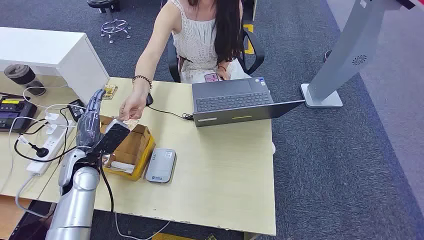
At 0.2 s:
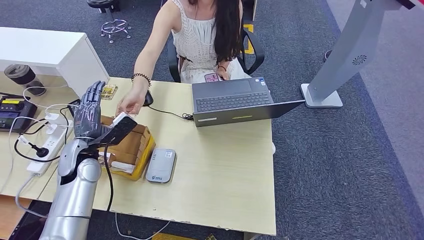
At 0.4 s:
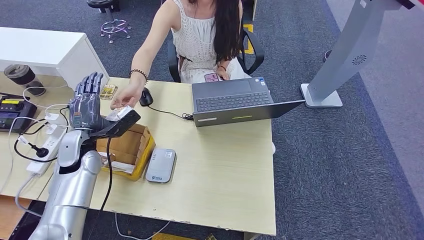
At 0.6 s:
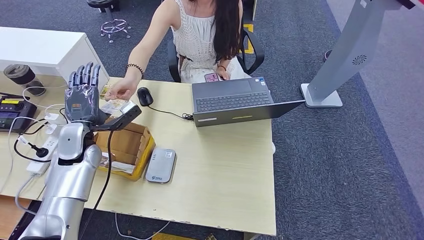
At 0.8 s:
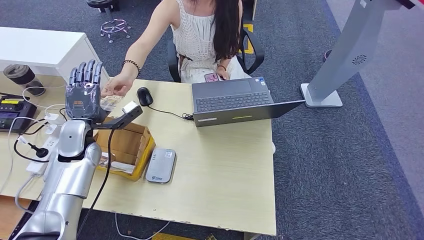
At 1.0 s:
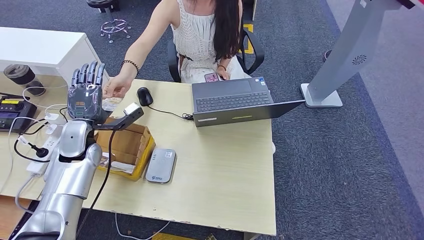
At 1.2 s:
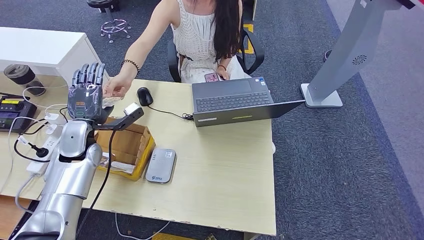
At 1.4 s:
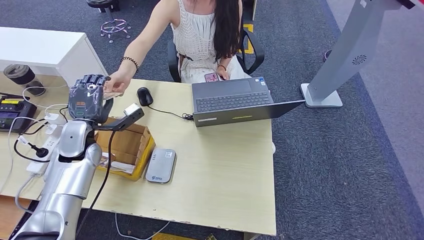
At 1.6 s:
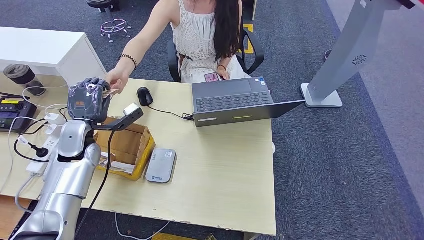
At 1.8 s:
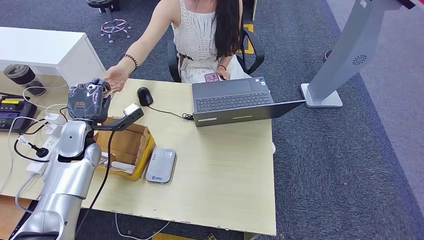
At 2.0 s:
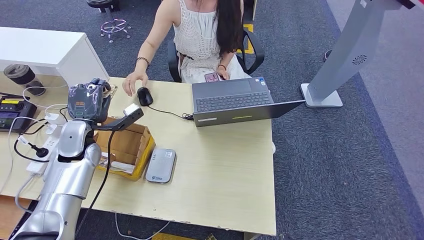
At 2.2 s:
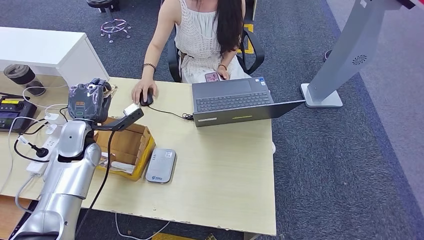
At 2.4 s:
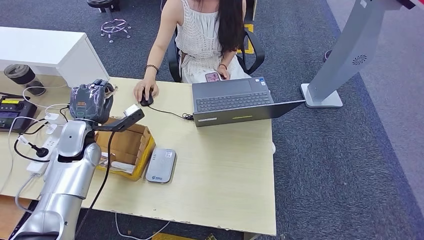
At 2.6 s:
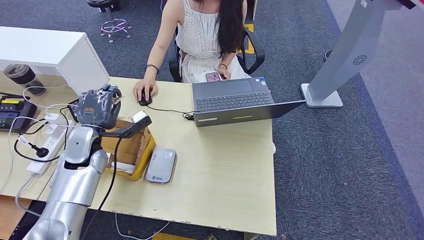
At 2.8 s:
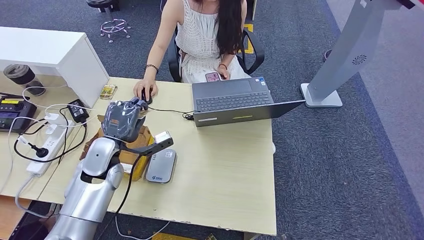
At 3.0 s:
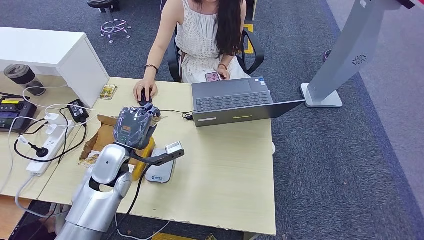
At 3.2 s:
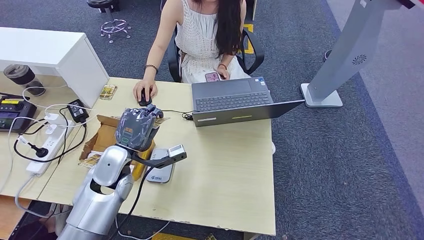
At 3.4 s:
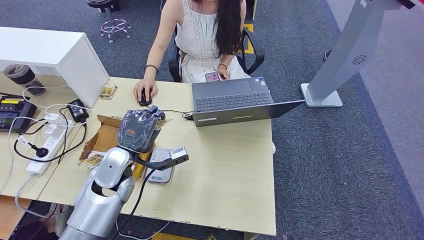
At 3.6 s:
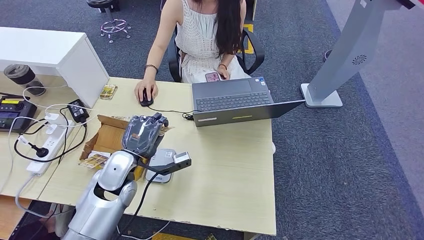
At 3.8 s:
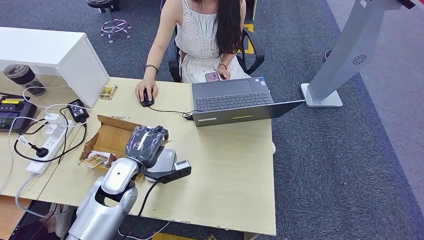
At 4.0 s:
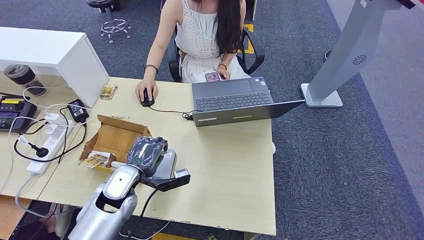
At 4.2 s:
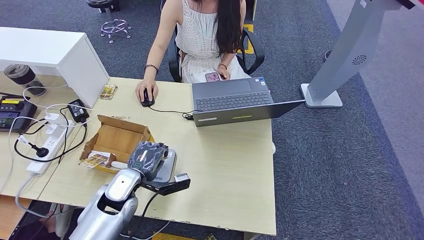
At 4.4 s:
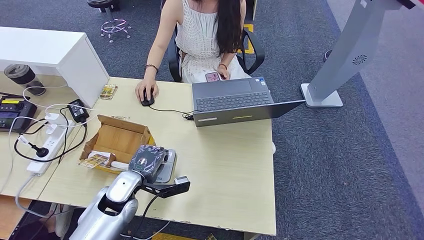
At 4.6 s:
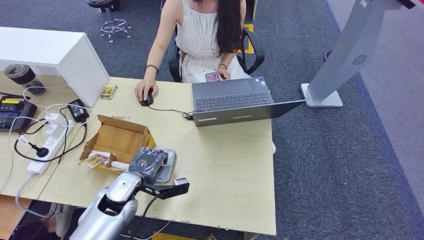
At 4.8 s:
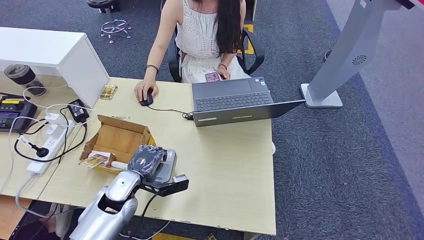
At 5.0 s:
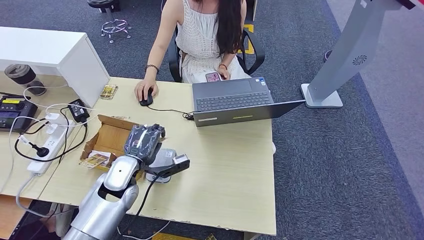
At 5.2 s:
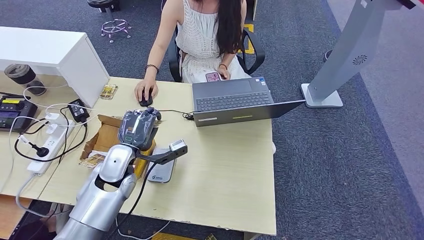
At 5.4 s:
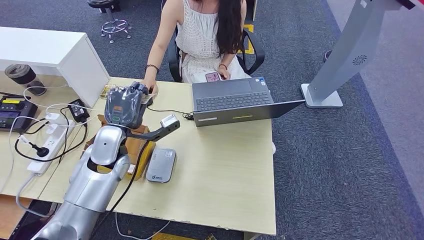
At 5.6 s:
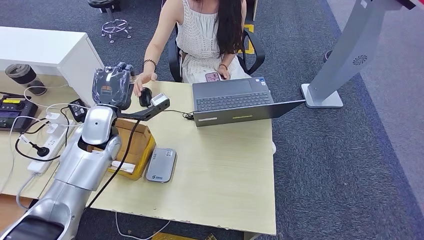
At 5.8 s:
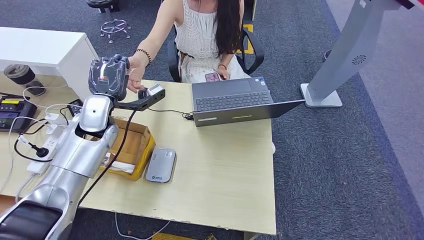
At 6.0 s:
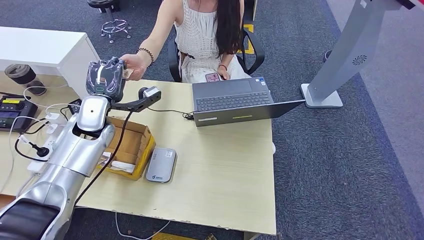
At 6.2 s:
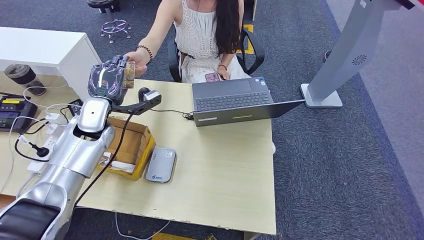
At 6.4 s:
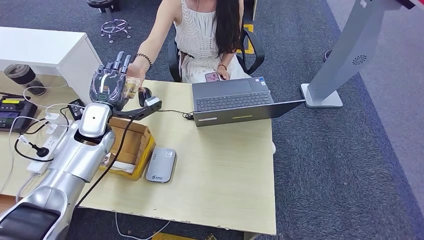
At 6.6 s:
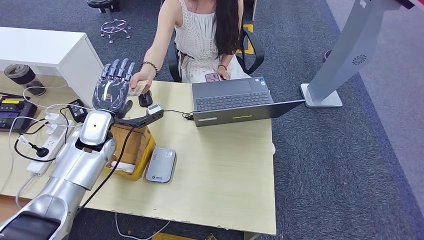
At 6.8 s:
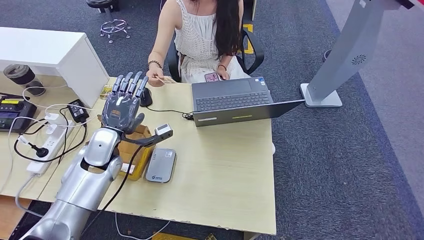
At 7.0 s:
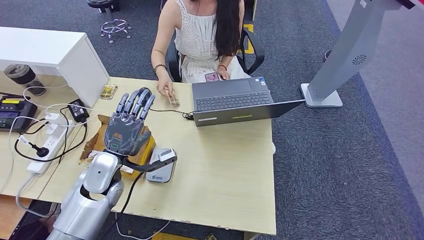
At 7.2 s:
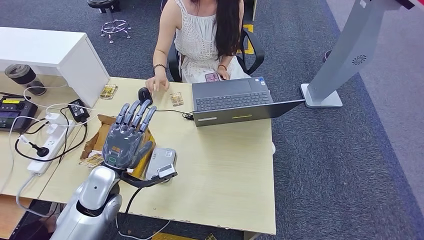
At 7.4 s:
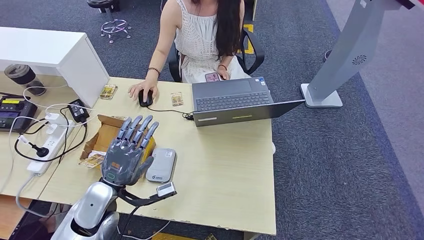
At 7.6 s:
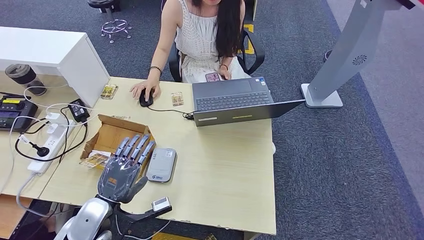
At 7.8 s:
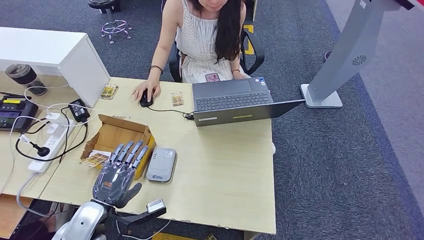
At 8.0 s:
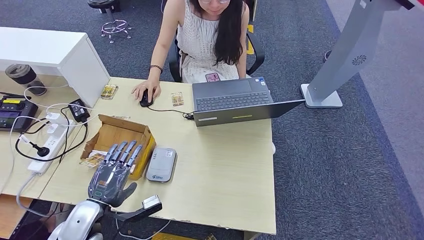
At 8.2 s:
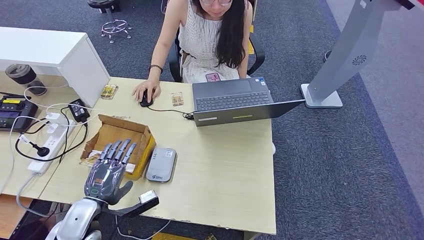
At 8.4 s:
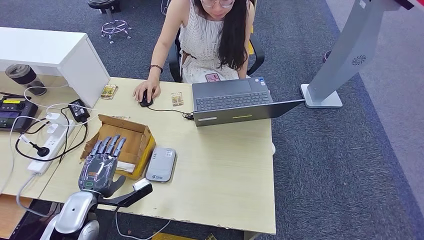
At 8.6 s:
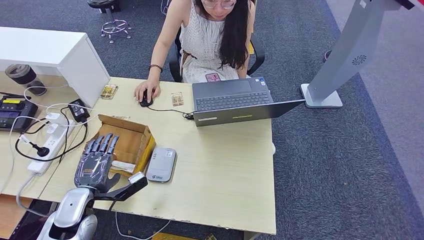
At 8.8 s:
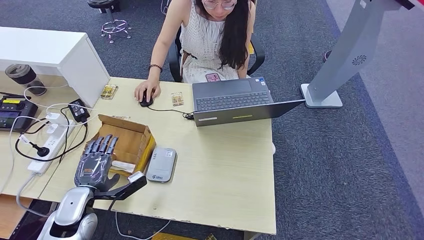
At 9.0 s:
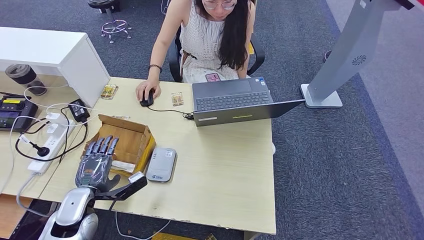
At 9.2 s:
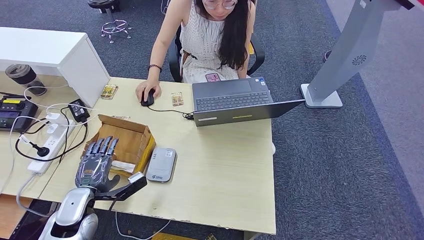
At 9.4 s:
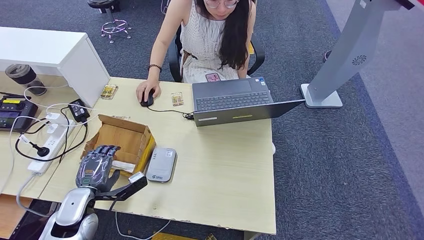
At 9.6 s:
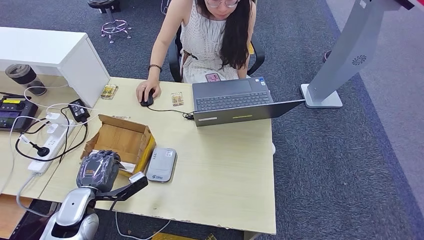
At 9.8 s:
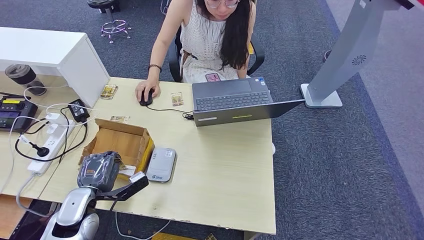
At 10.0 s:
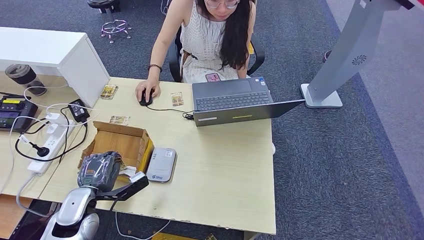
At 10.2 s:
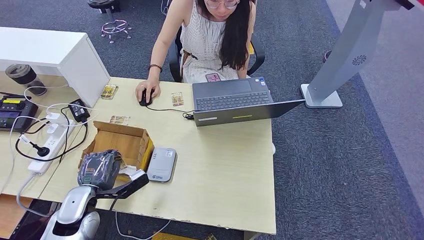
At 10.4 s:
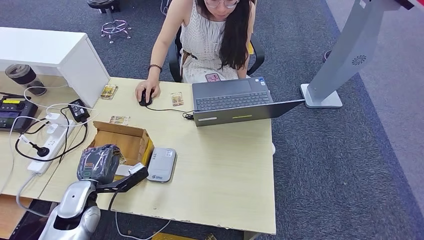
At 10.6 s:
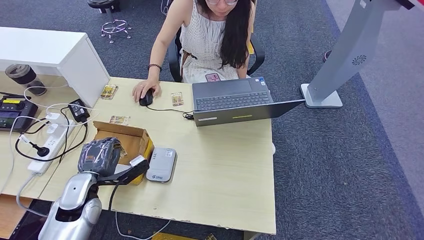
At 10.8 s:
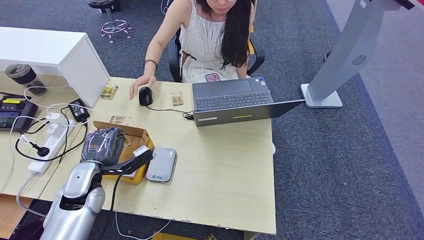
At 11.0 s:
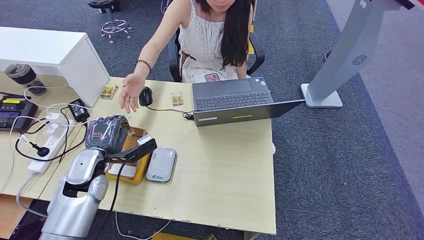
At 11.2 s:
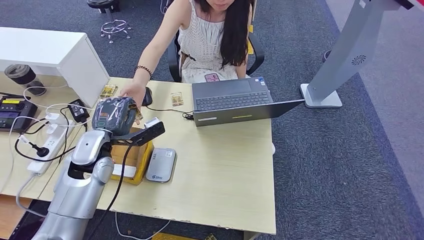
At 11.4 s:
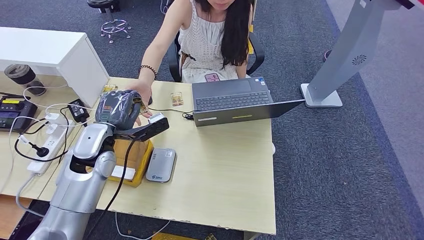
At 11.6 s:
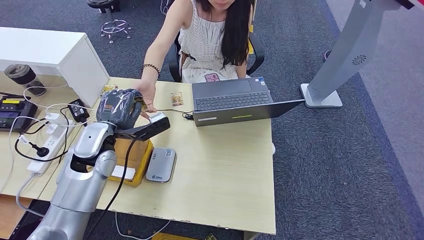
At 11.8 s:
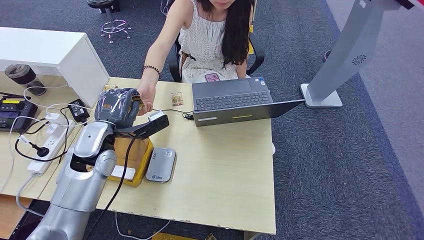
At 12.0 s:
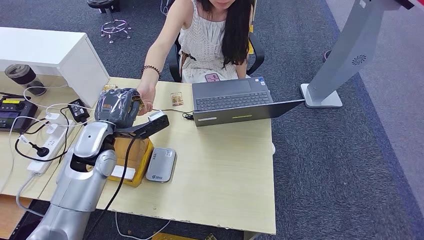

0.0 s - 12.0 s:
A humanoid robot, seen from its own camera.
Step, 0.0 s - 2.2 s: Take the ID card from the person's hand.
Step, 2.4 s - 5.6 s: Place the ID card on the card reader.
Step, 5.8 s - 9.2 s: Hand the ID card to the person.
Step, 9.4 s - 12.0 s: Pick up the room key from the key card box.
1.6 s - 3.0 s: The left hand moves to the right and backward, some 10 cm.
3.0 s - 4.4 s: The left hand travels downward by about 5 cm.
4.4 s - 6.0 s: The left hand heads upward, forward and to the left, covering about 20 cm.
6.0 s - 7.6 s: The left hand travels backward and downward by about 25 cm.
7.6 s - 9.0 s: The left hand goes some 5 cm to the left.
9.0 s - 10.4 s: There are only small adjustments of the hands.
10.4 s - 12.0 s: The left hand goes roughly 15 cm upward, forward and to the right.

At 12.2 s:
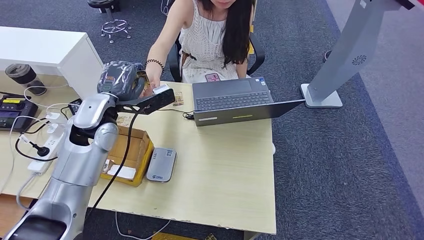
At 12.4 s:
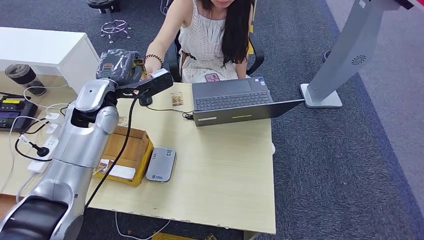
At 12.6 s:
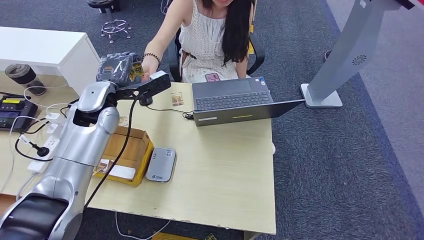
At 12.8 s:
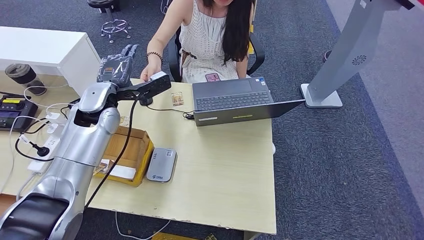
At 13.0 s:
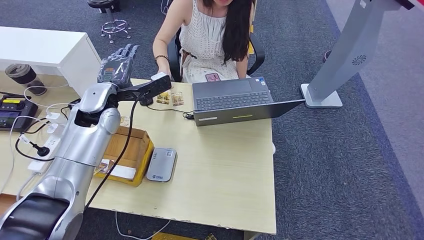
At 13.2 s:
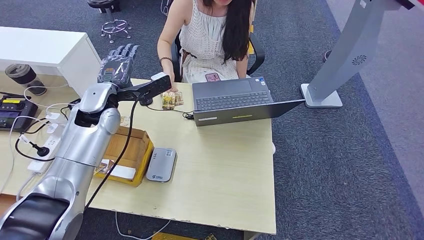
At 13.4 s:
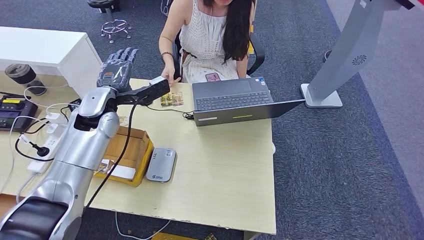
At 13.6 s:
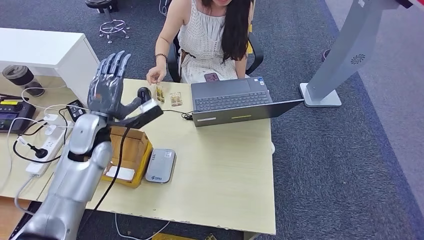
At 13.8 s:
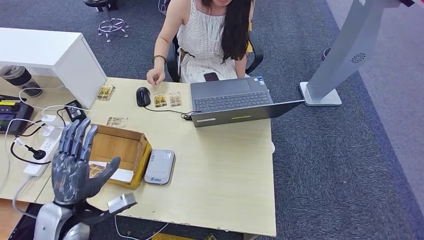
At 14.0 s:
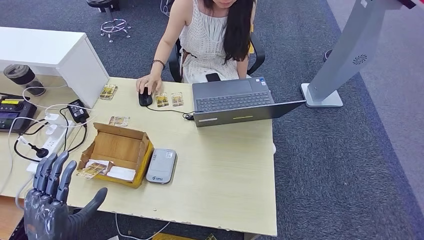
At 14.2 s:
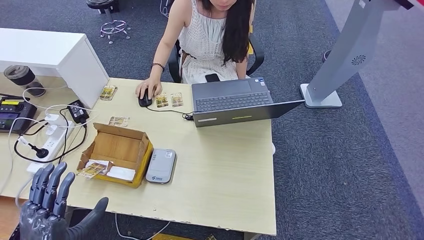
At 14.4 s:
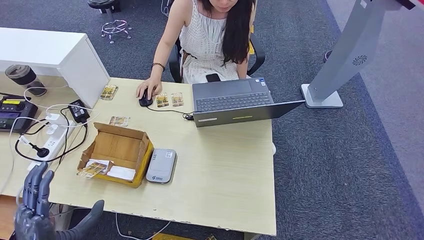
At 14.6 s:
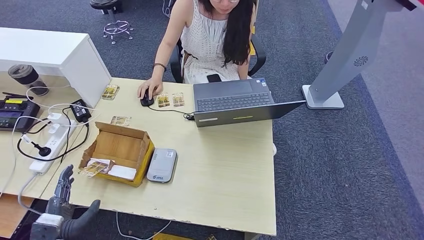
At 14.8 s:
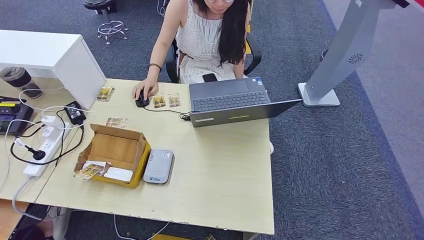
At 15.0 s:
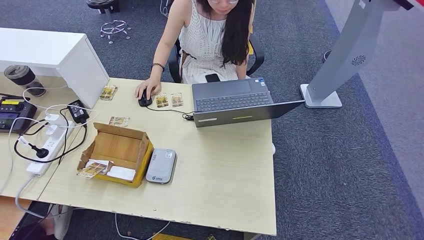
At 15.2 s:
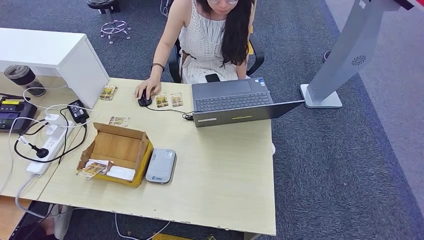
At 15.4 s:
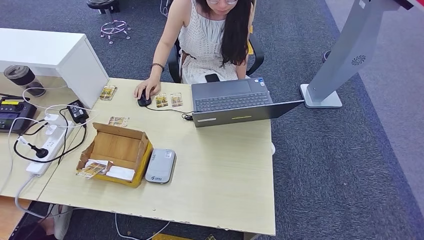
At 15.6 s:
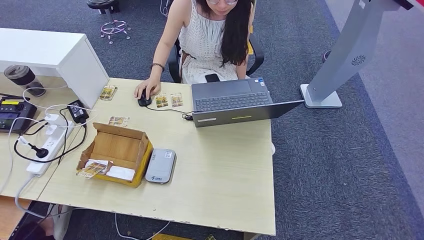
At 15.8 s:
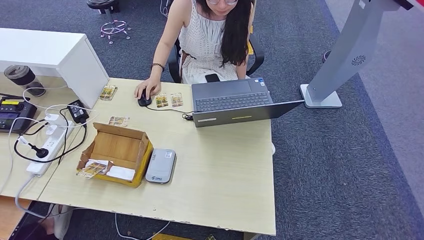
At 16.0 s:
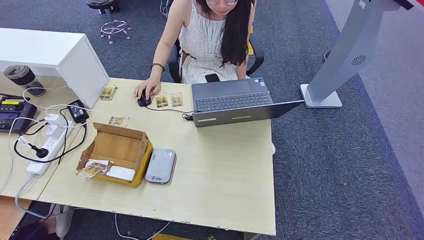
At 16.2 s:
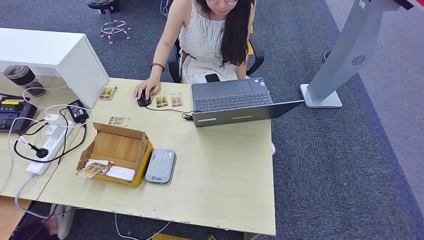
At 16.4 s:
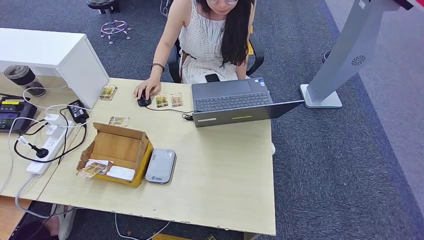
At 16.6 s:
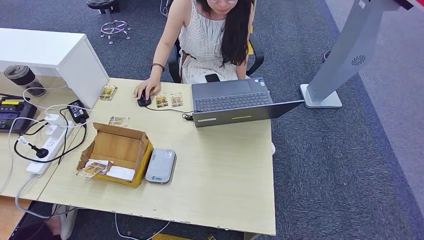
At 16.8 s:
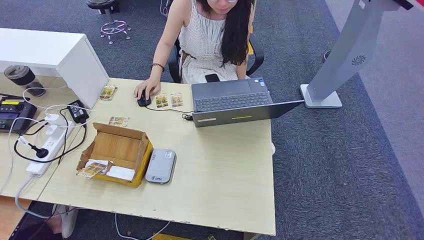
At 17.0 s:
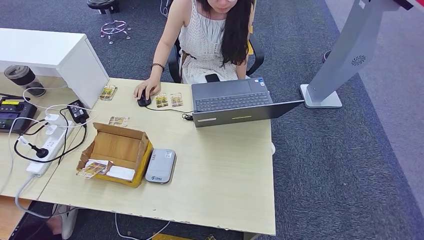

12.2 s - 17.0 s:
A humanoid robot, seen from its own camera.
Step, 12.2 s - 17.0 s: Hand the room key to the person.
13.8 s - 15.4 s: The left hand heads downward and backward, covering approximately 35 cm.
